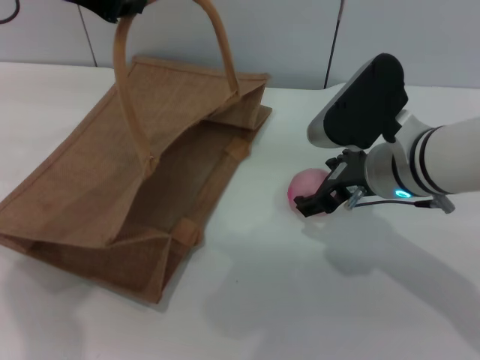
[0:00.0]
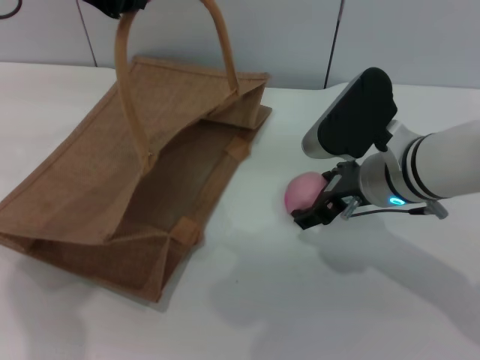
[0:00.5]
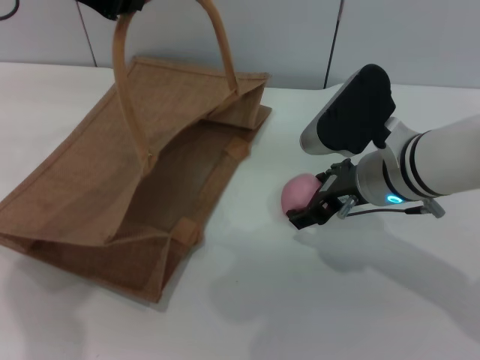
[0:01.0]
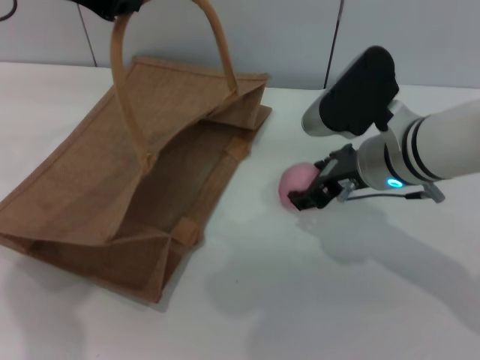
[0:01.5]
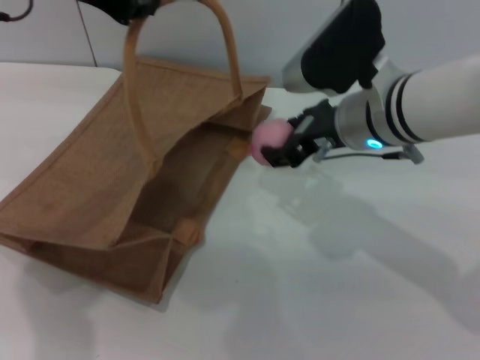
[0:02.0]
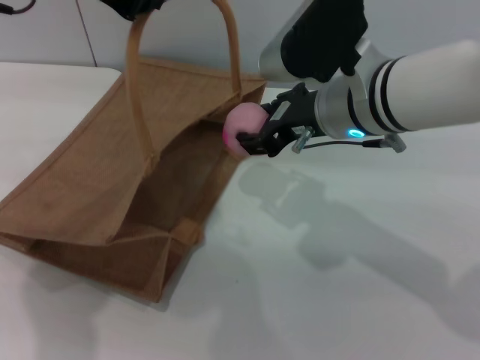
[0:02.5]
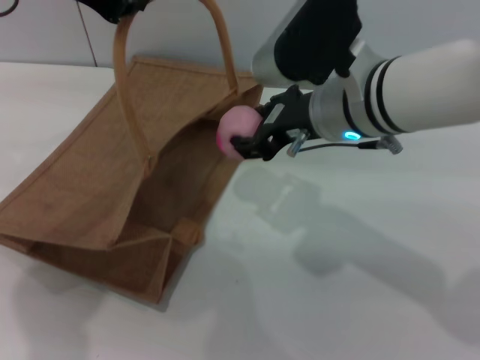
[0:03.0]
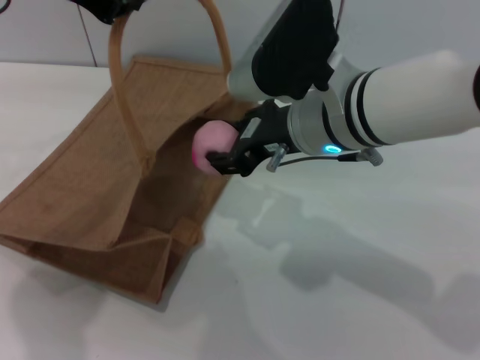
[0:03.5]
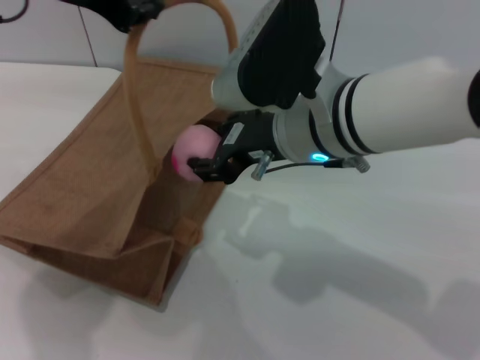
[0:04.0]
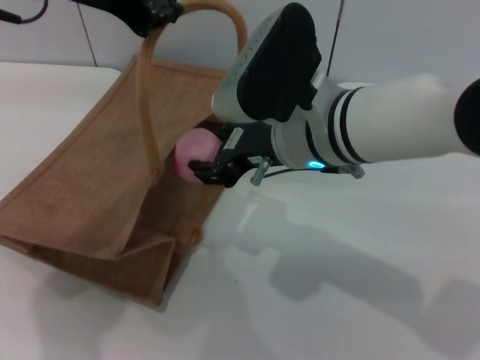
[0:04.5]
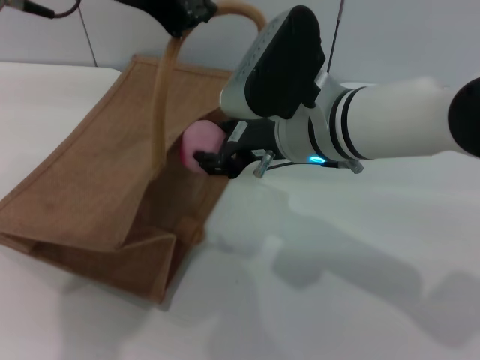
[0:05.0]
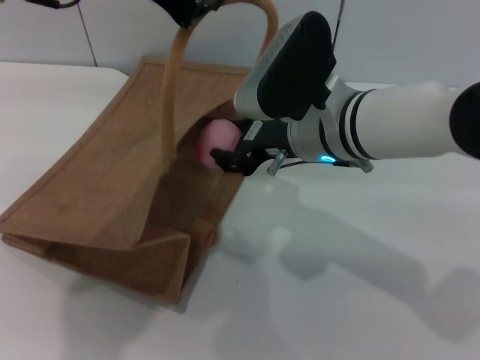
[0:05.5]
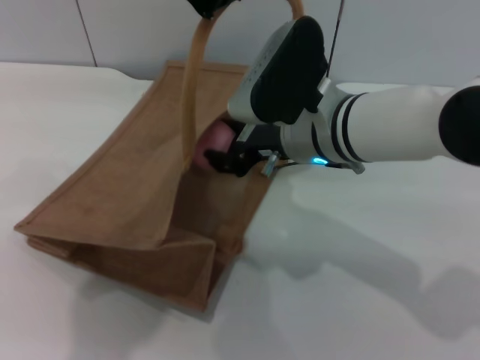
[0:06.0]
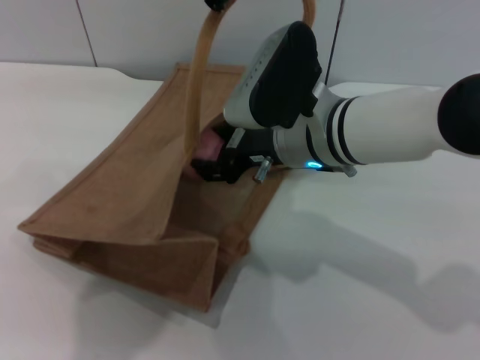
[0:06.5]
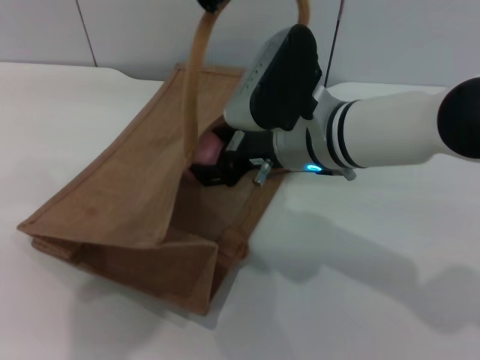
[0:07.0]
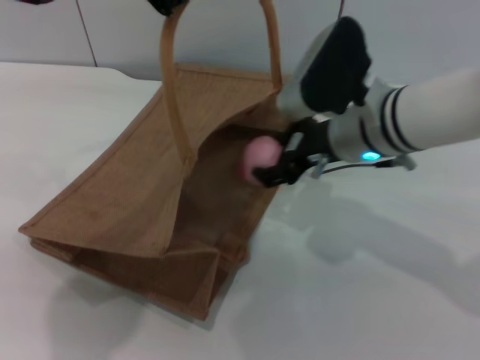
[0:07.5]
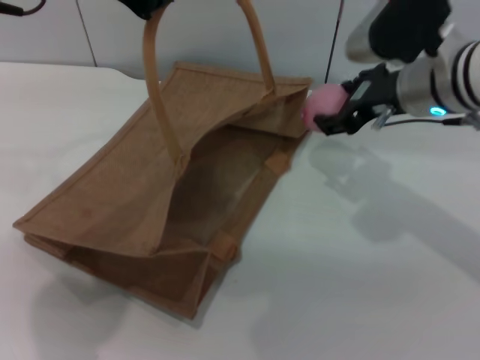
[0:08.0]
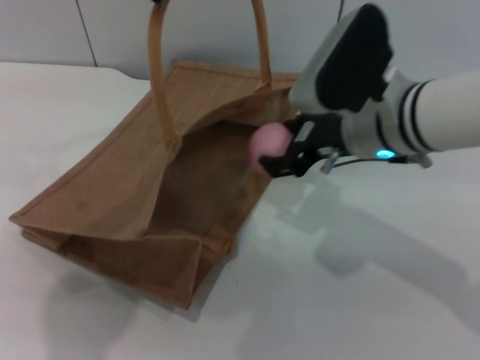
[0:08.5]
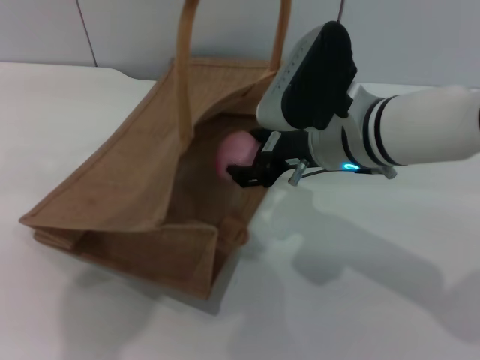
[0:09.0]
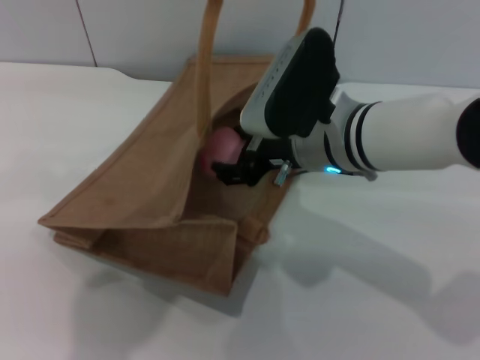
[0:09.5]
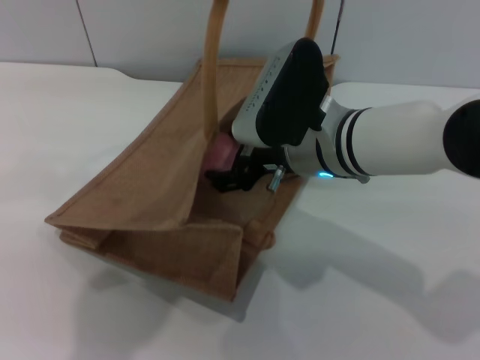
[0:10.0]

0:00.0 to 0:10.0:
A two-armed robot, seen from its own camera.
Task of the whole recording: pick up the peach from the table and place it in the brown handbag.
0:00.0 to 0:02.0: The right gripper moves roughly 5 cm, and closes up.
0:02.0 to 0:04.0: The right gripper goes some 5 cm to the left.
0:04.0 to 0:06.0: The right gripper changes place by about 5 cm; the left gripper moves to the right, roughly 5 cm.
0:06.0 to 0:08.0: The right gripper heads to the right, covering roughly 10 cm, and opens up, while the left gripper shifts by approximately 5 cm.
0:08.0 to 0:10.0: The left gripper moves to the right, about 5 cm. The right gripper is displaced to the left by roughly 10 cm.

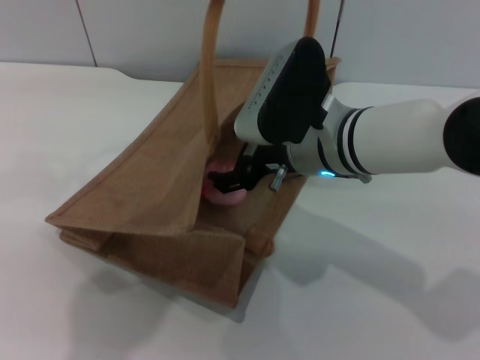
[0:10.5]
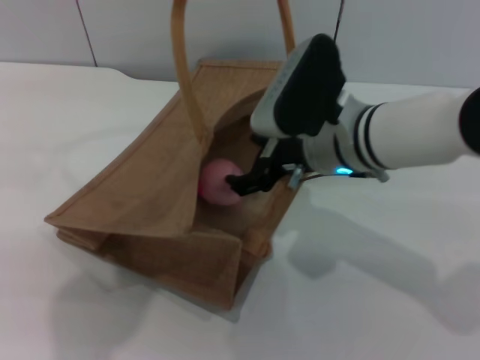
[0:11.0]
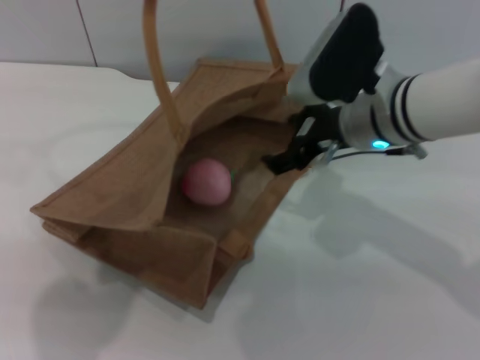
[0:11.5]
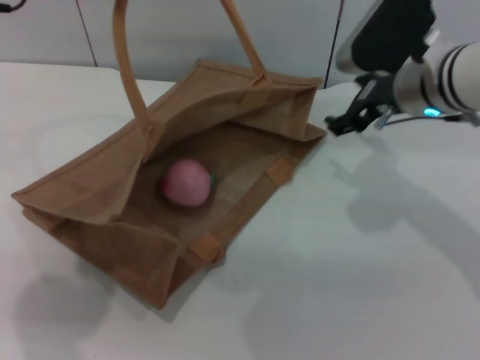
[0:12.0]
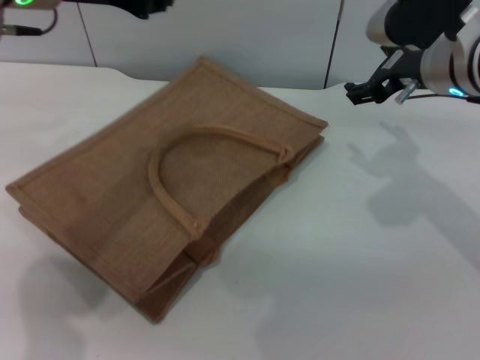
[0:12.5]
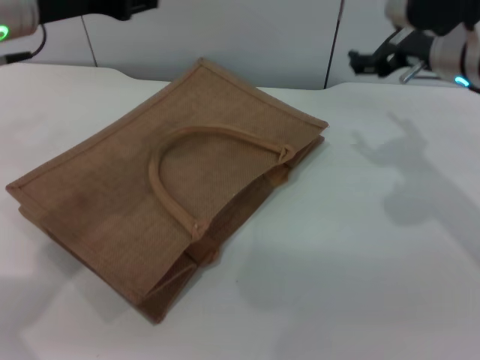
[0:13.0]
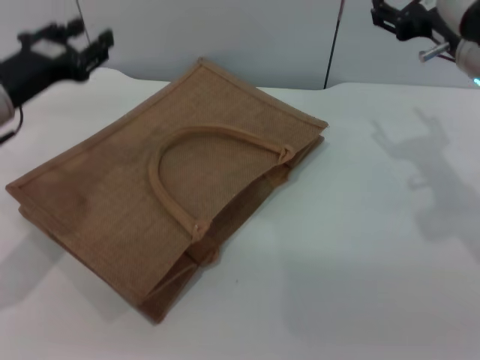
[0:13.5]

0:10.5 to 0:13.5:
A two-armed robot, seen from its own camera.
Task of the whole recording: pick up the peach from the table and place it in the brown handbag.
Step, 0:11.5 to 0:12.0: Lower the woven bag with the left gripper to close it.
0:10.5 to 0:12.0: The left gripper heads to the left, covering roughly 5 cm, while the right gripper goes about 10 cm to the right.
0:12.0 to 0:13.5: The right gripper changes place by some 5 cm, while the left gripper is displaced downward and to the left by roughly 20 cm, and opens up.

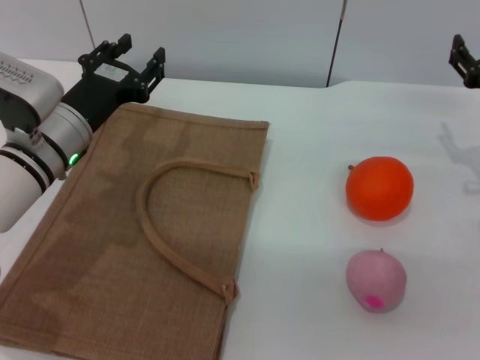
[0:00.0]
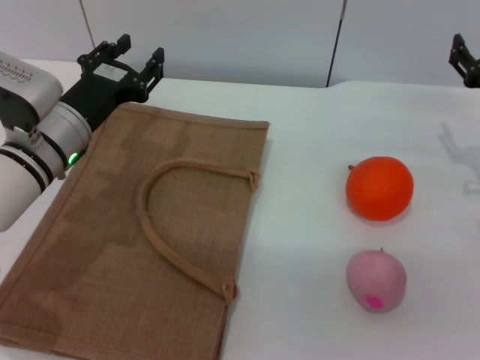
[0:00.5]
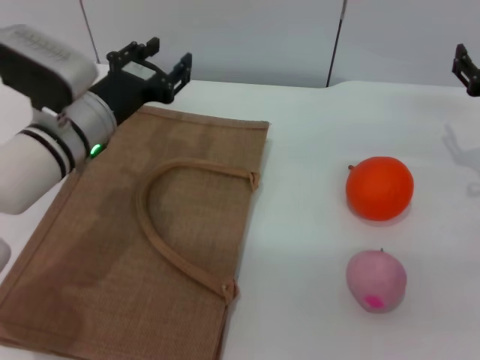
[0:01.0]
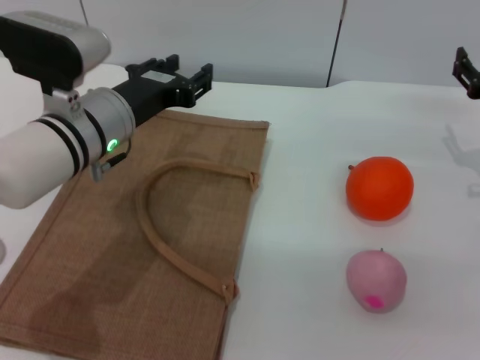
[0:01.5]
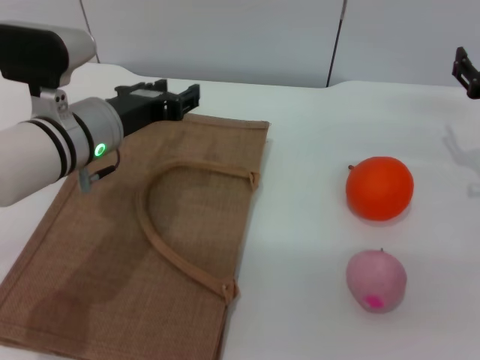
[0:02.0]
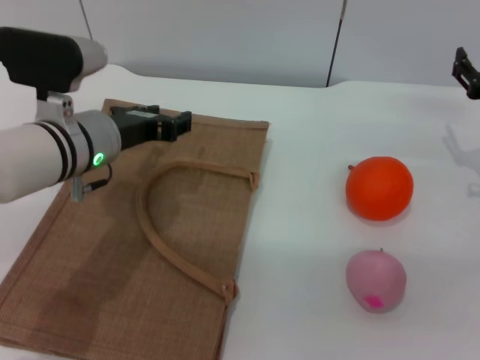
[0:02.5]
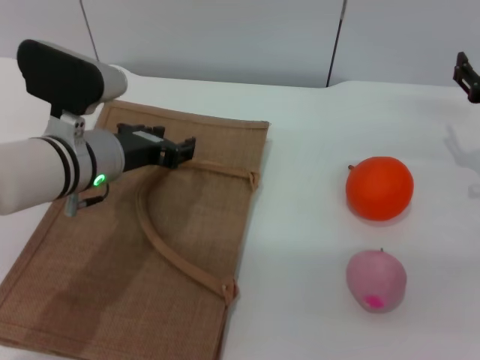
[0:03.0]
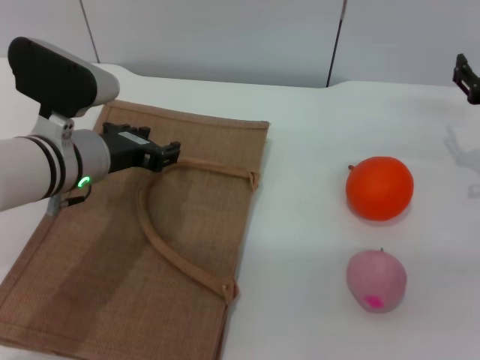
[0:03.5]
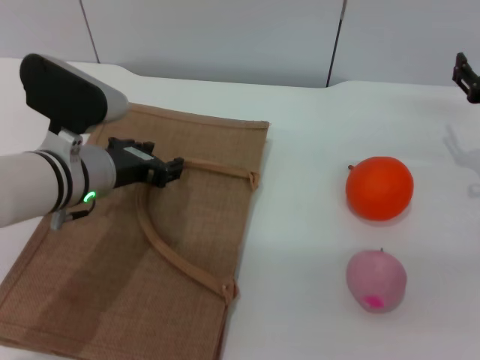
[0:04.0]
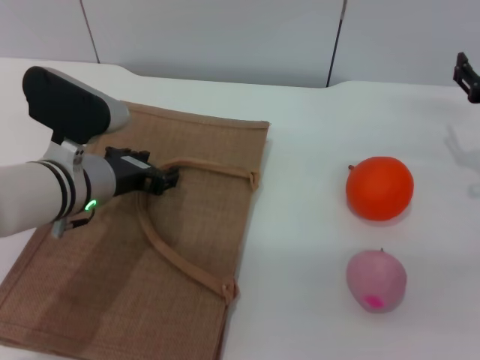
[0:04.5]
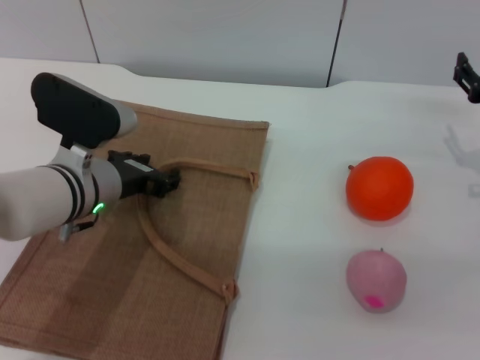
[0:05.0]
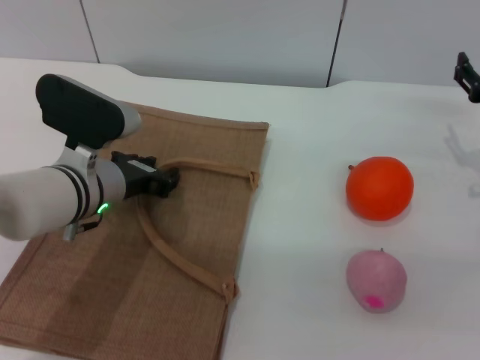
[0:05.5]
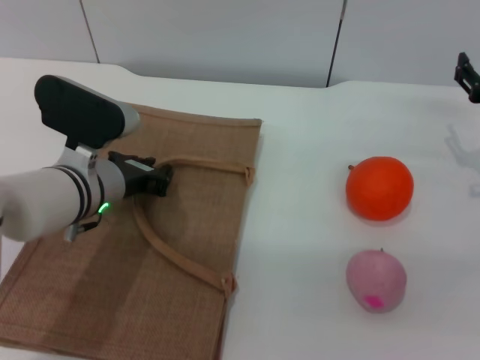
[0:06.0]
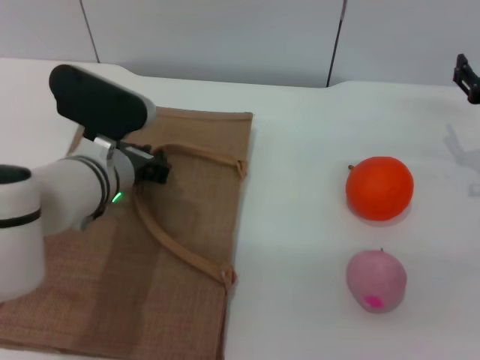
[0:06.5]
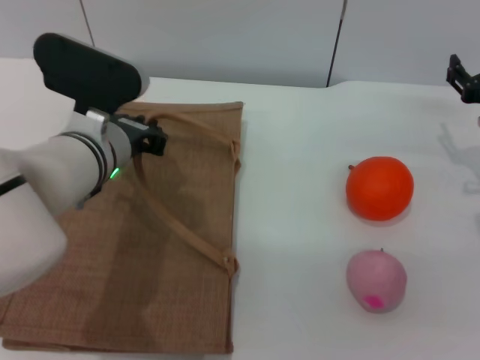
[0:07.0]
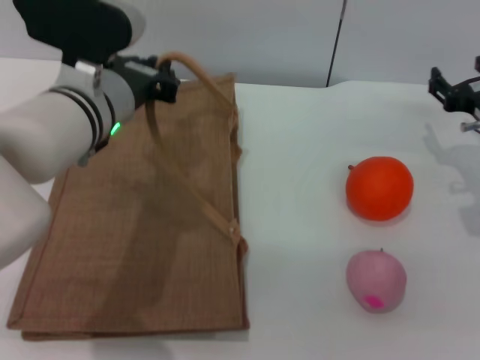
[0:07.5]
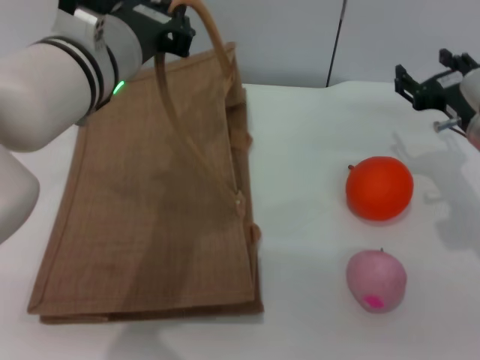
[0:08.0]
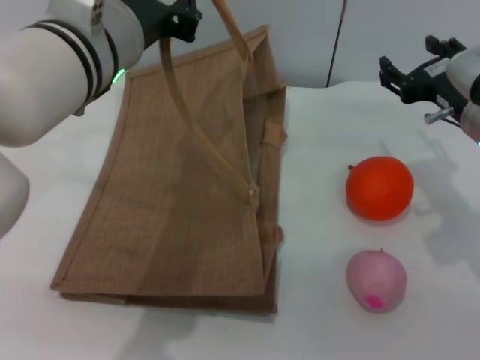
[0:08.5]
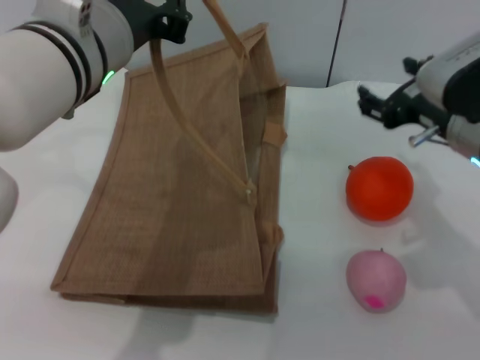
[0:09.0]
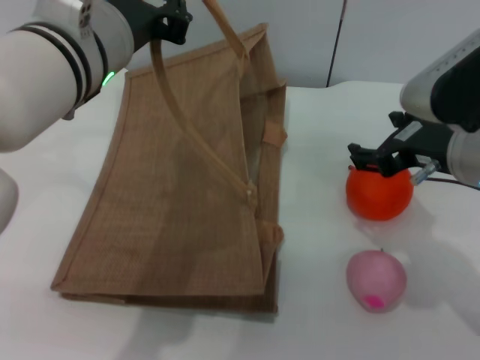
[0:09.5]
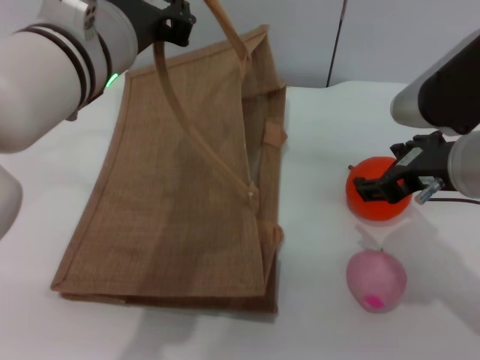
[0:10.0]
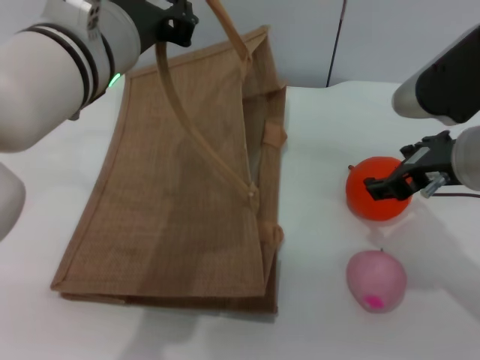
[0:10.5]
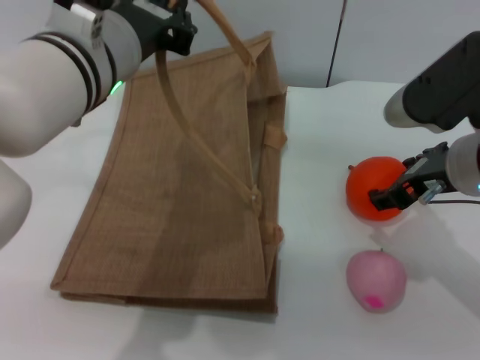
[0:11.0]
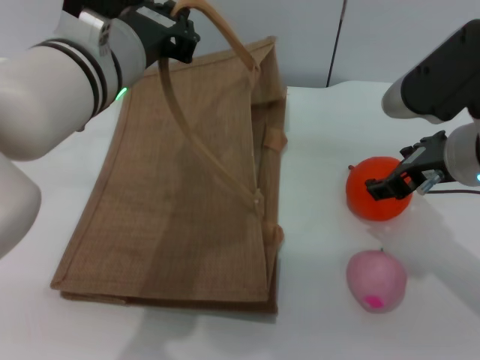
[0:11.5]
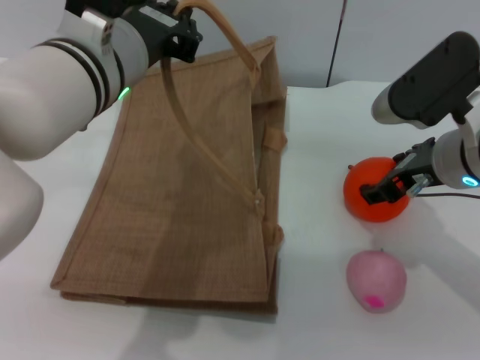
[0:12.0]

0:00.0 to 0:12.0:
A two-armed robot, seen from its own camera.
Task of the whole recording: pick up the orange and peach from the table and place it in the brown handbag.
Step, 0:00.0 to 0:07.5: Lift the woven bag with the left gripper to open it.
0:00.0 to 0:02.0: The left gripper changes place by roughly 5 cm.
0:04.0 to 0:06.0: The grippers make only small movements.
0:06.0 to 0:08.0: The right gripper moves to the left, some 5 cm. Meanwhile the left gripper goes roughly 15 cm upward, and closes.
0:08.0 to 0:10.0: The right gripper moves upward, backward and to the left, about 15 cm.
0:10.0 to 0:12.0: The right gripper ends up approximately 5 cm from where it was.
